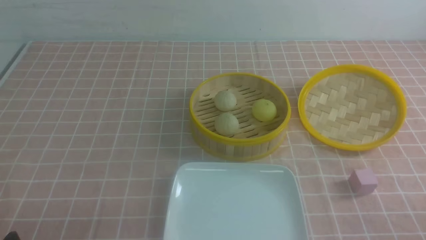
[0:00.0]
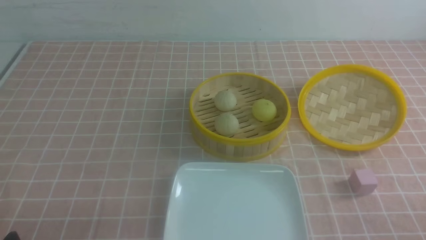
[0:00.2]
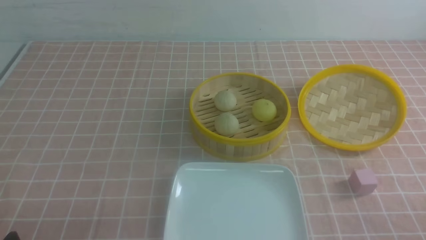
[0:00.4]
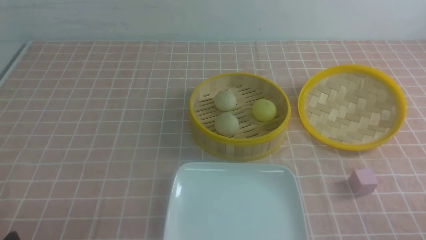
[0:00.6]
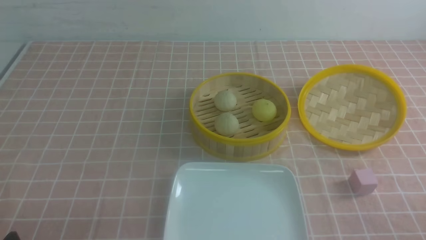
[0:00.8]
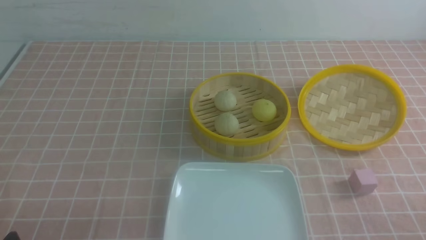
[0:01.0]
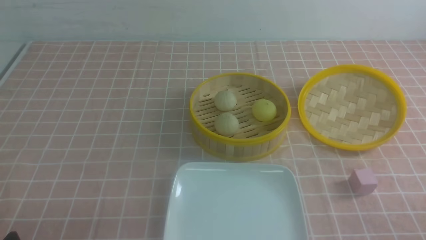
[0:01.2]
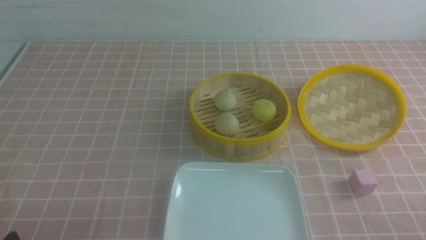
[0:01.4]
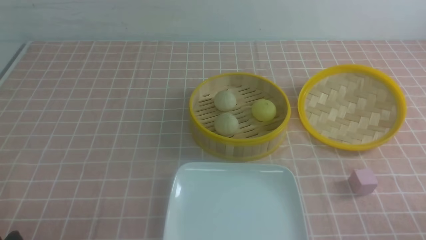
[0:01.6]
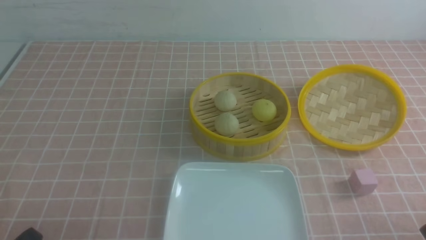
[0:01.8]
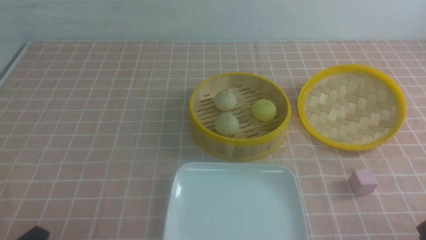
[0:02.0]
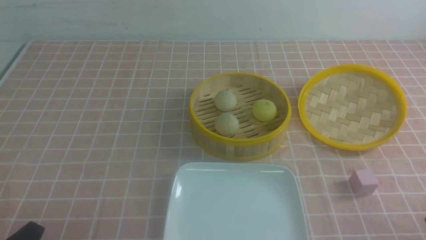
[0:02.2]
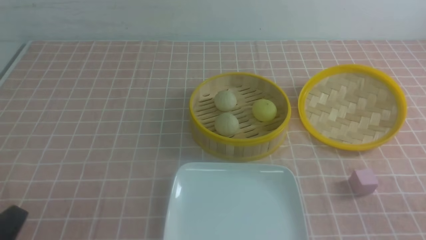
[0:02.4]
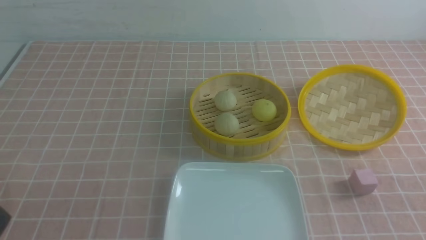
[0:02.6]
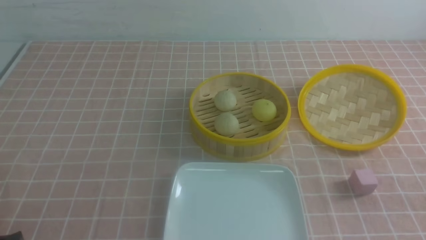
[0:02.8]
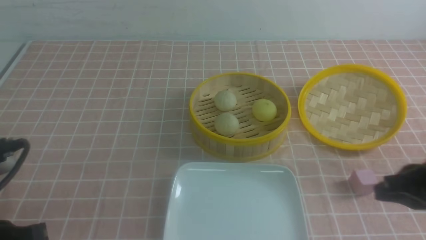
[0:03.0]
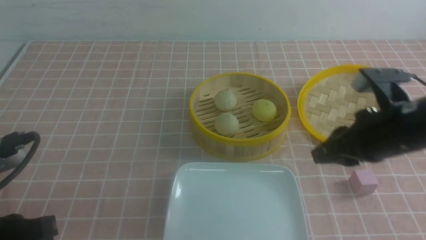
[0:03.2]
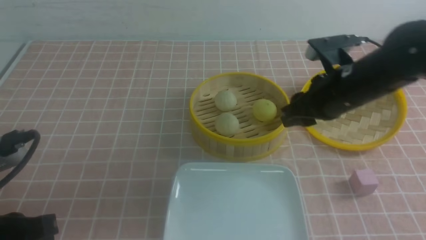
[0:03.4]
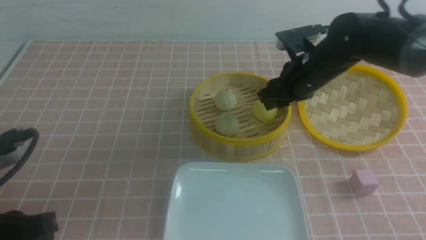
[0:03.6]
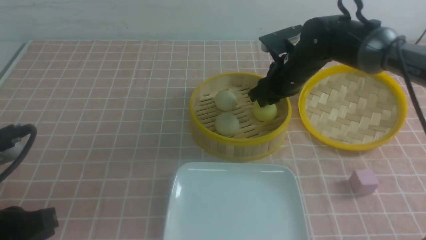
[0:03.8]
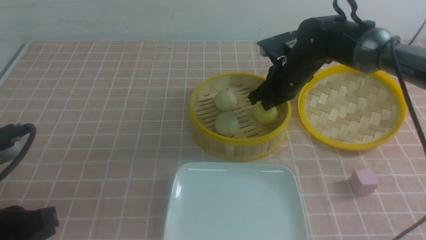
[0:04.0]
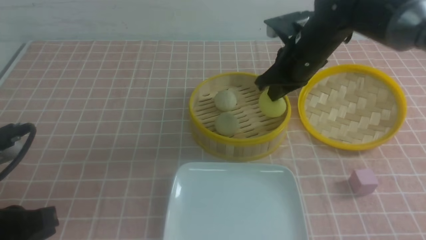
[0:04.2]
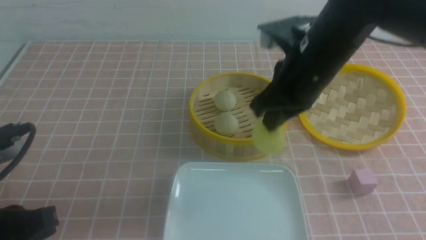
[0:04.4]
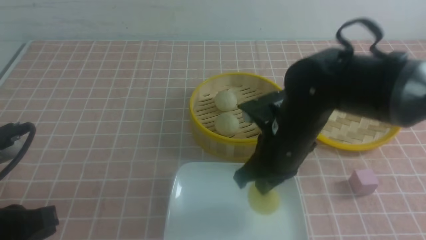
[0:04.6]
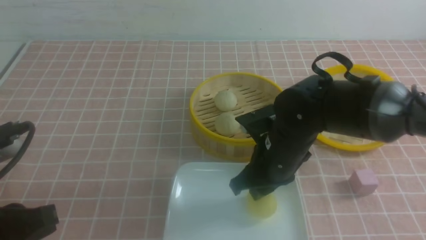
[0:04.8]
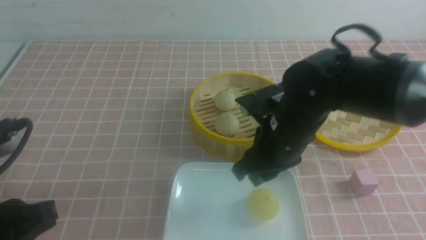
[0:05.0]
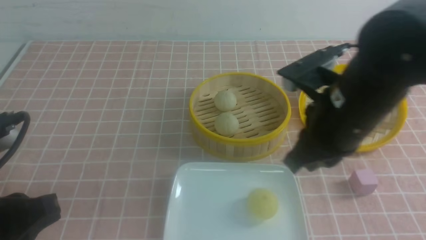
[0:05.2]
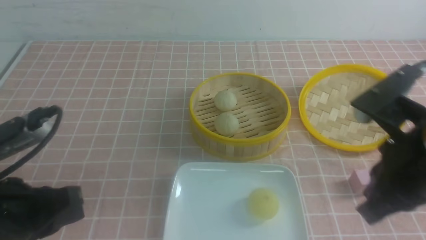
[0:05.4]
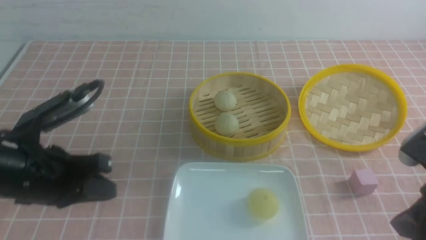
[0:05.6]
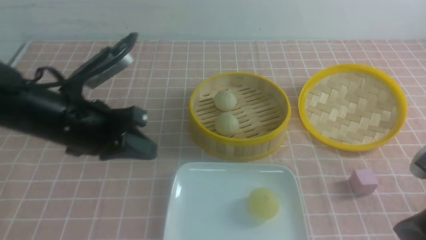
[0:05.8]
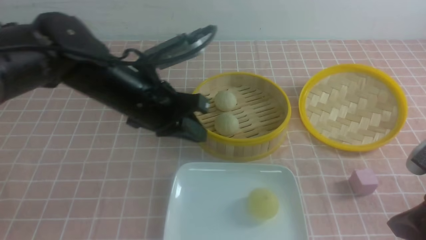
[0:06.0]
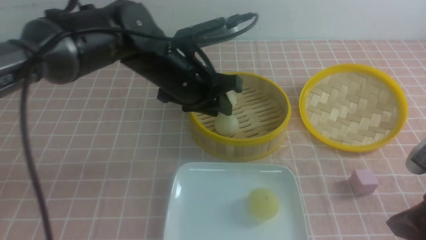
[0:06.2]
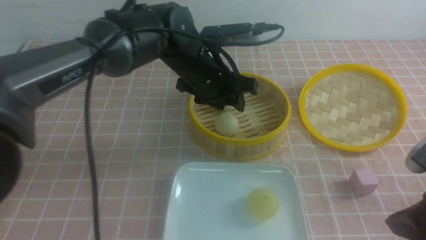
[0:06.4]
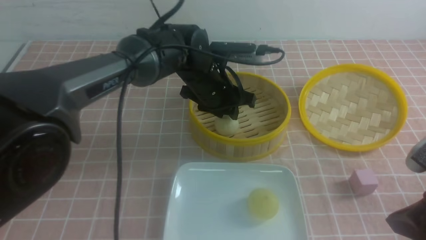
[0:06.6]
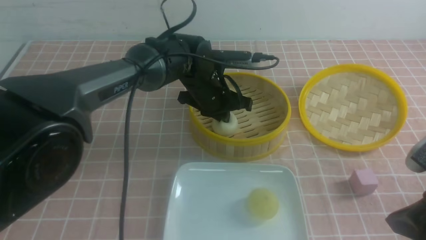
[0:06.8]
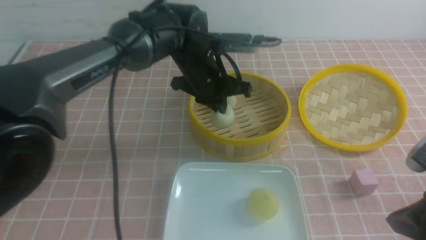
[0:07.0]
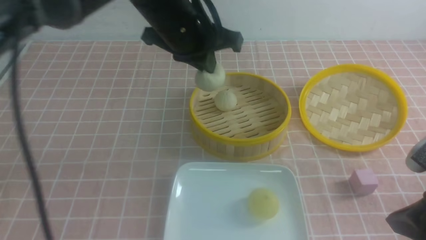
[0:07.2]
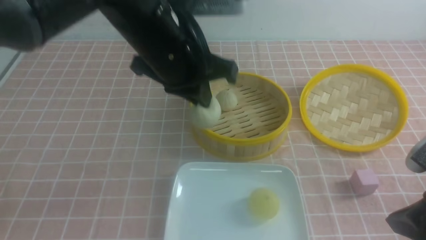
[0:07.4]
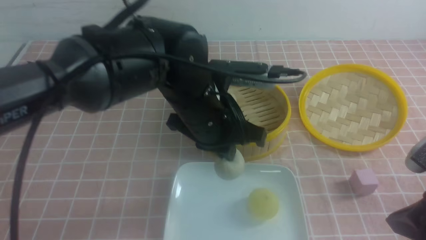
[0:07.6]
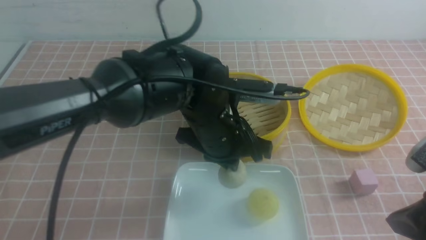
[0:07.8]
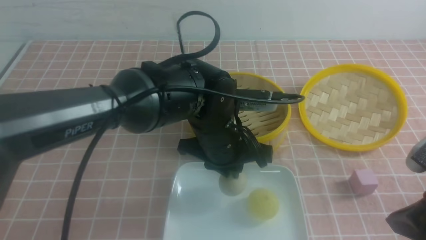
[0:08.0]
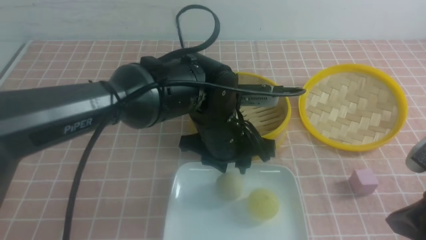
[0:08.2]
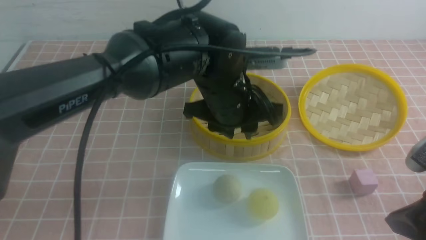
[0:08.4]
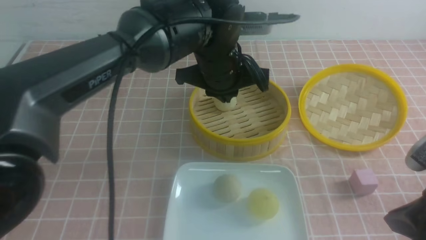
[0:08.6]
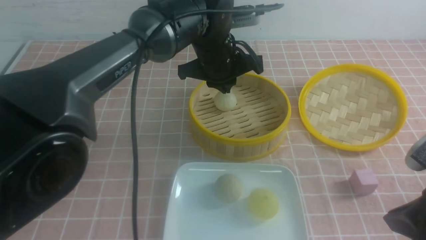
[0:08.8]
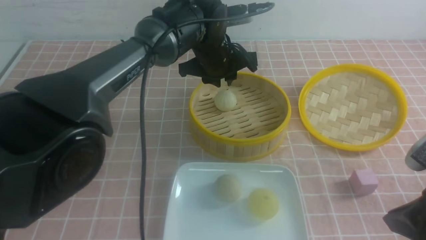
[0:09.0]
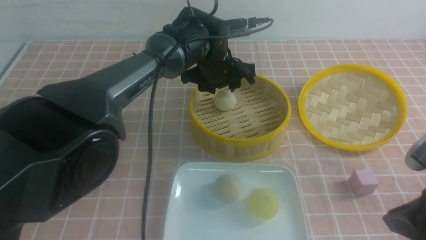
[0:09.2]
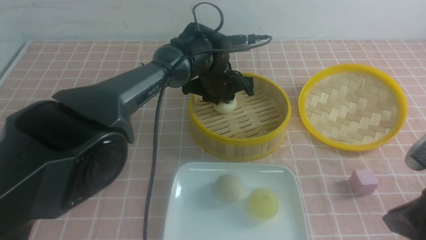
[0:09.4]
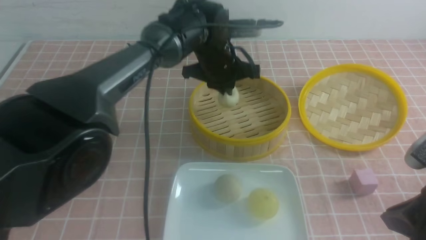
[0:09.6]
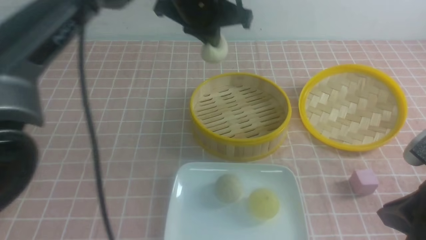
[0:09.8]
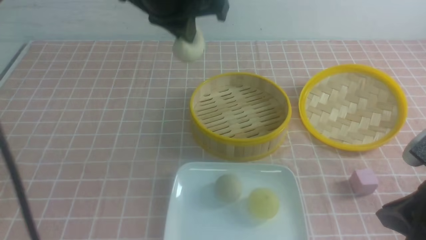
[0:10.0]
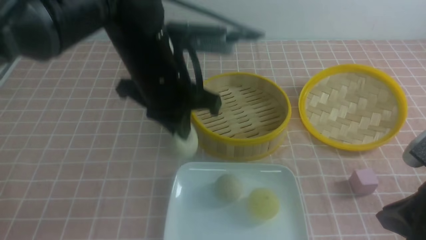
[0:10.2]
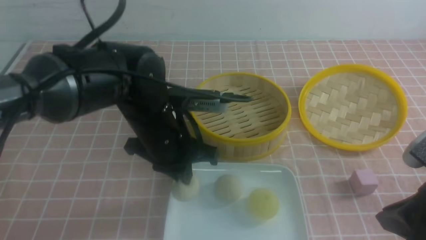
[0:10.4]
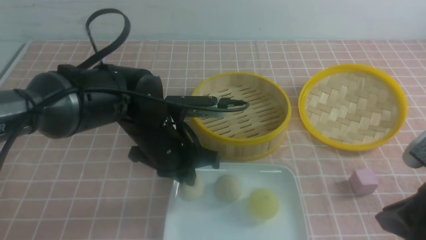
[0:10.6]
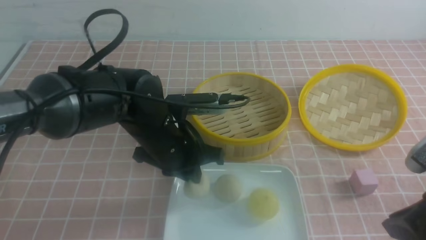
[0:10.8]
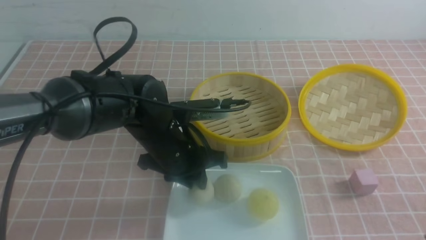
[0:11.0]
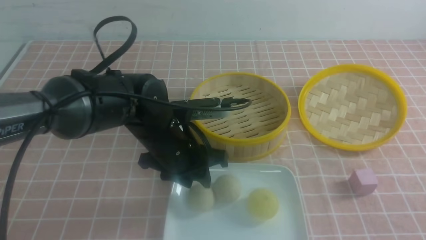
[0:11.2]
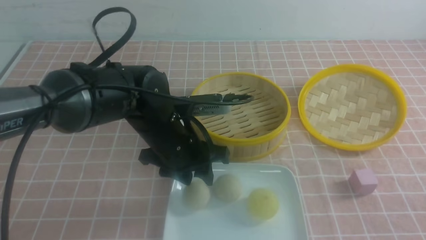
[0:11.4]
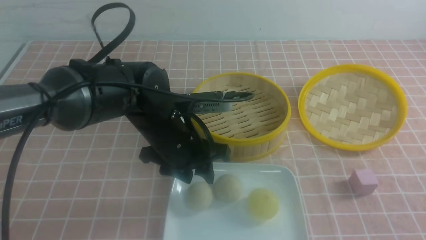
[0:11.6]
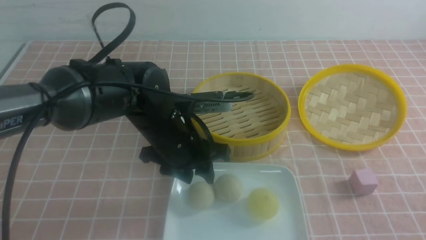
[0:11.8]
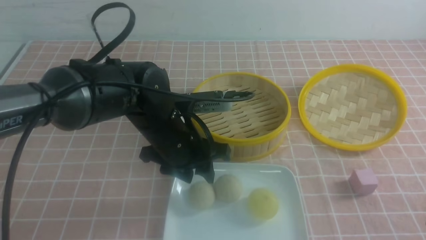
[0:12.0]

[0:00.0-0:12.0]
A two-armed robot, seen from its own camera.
Step, 0:00.0 to 0:03.8: use the right arm to grab the steamed stuffed bun that is closest to it.
Step, 0:04.0 to 0:04.8: use the right arm to put the steamed stuffed bun into the plate.
Step, 0:05.0 to 0:06.8: use the left arm to grab the steamed stuffed bun that is closest to it.
Step, 0:07.0 to 0:08.0: use the left arm to put the steamed stuffed bun into the plate.
Step, 0:08.2 to 0:09.4: use the left arm to grab the steamed stuffed bun that is closest to it.
Step, 0:09.6 to 0:11.2: use the left arm to put the steamed stuffed bun into the plate.
0:01.6 to 0:03.0: The right gripper is displaced forward, upward and to the left by roughly 20 cm, and closes. The left gripper heads upward, covering approximately 10 cm, and closes its fingers.
0:03.0 to 0:04.4: The right gripper heads to the left and forward, covering roughly 20 cm, and opens, then closes once more.
0:04.4 to 0:06.0: The right gripper moves backward and to the right, roughly 25 cm, and opens and closes again, while the left gripper goes approximately 25 cm forward and to the right.
0:06.0 to 0:07.6: The left gripper heads to the right, covering about 10 cm, moves roughly 10 cm forward and comes back, and opens, then closes once more.
0:07.6 to 0:09.0: The left gripper goes roughly 15 cm forward, and opens its fingers.
0:09.0 to 0:10.4: The left gripper shifts about 15 cm backward and to the left, and closes up.
0:10.4 to 0:12.0: The left gripper opens. Meanwhile the right gripper moves backward and to the right, some 10 cm, and closes.

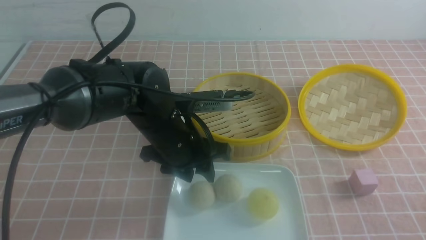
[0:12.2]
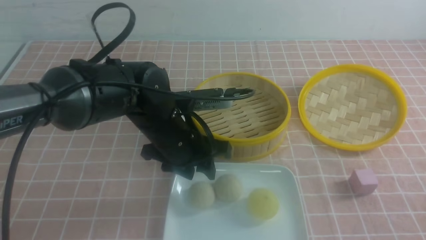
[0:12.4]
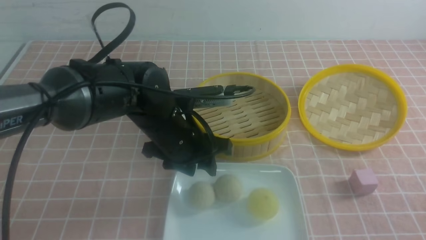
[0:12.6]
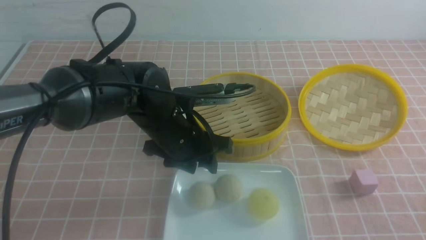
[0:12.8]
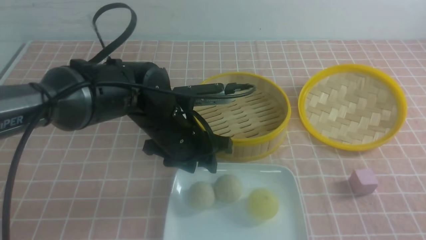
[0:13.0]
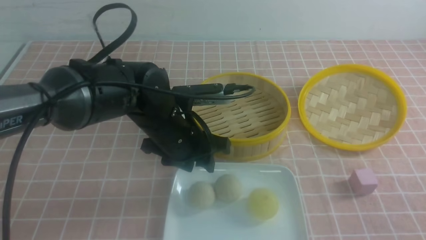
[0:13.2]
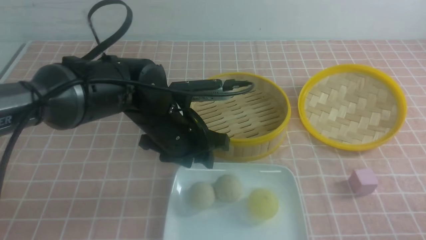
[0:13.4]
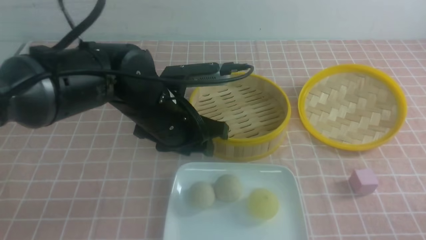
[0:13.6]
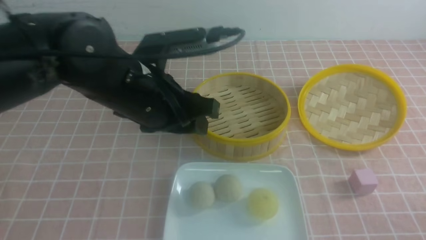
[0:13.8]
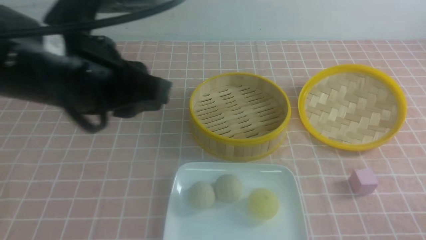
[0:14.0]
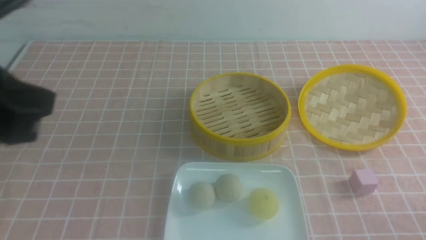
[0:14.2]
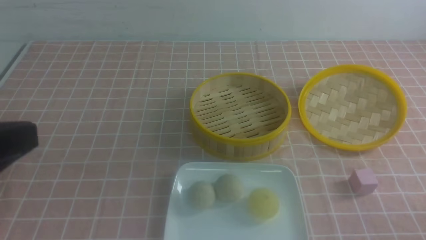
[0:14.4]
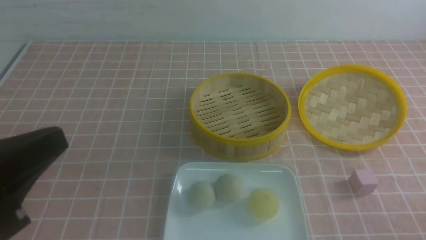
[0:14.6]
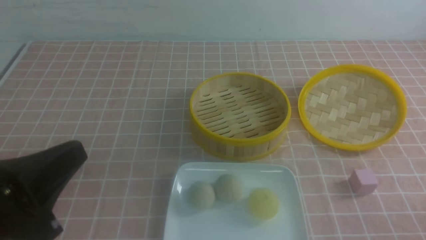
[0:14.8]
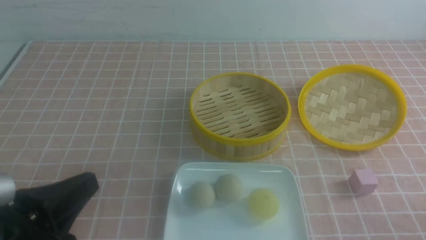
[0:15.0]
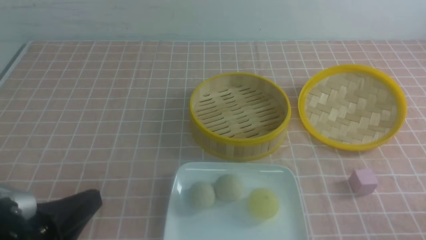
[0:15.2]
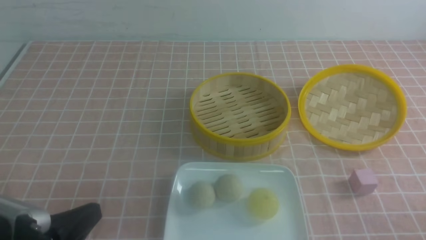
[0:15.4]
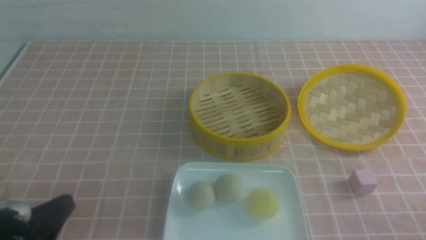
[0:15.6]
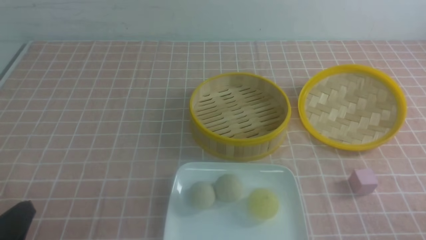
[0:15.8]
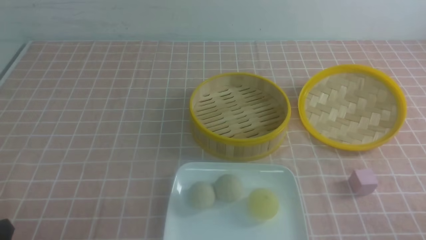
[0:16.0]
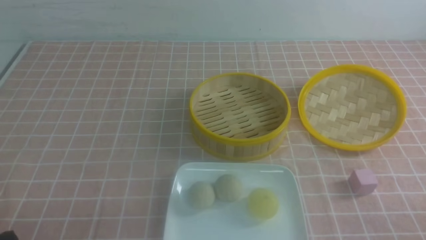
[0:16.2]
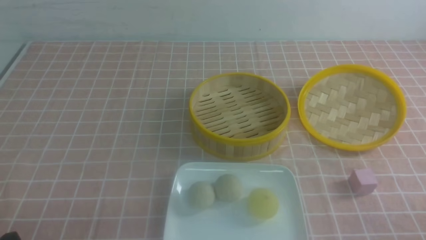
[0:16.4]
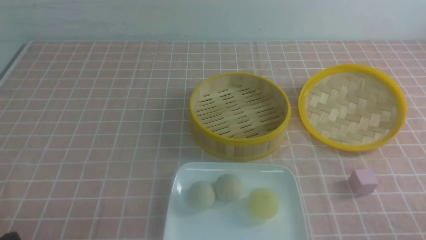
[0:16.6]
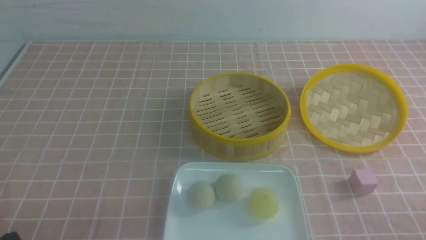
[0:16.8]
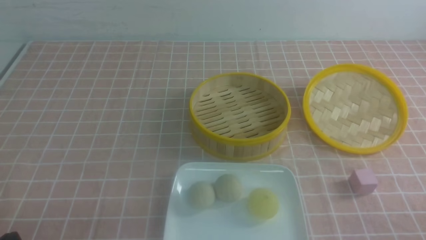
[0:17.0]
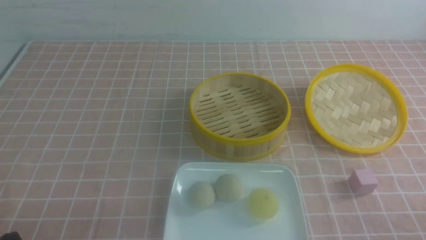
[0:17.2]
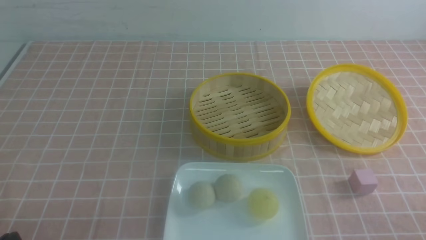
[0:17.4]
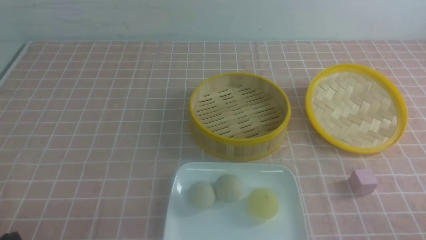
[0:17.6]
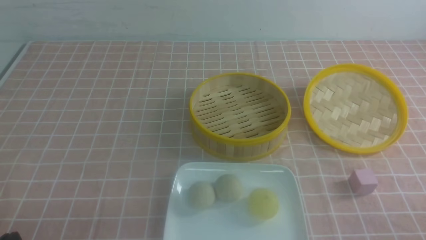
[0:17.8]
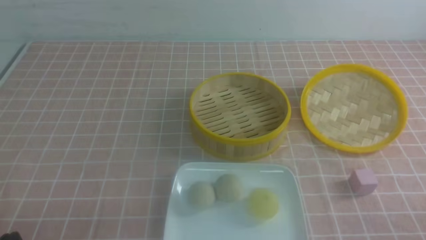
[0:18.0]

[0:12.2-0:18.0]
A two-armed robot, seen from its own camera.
0:12.2 to 0:13.6: The left gripper is displaced upward by about 5 cm; the right gripper goes approximately 10 cm downward.
0:13.6 to 0:15.0: The left gripper shifts about 25 cm backward and to the left, and closes its fingers.
0:15.0 to 0:16.6: The left gripper shifts some 10 cm downward and to the left.
0:16.6 to 0:18.0: The two grippers keep their place.
